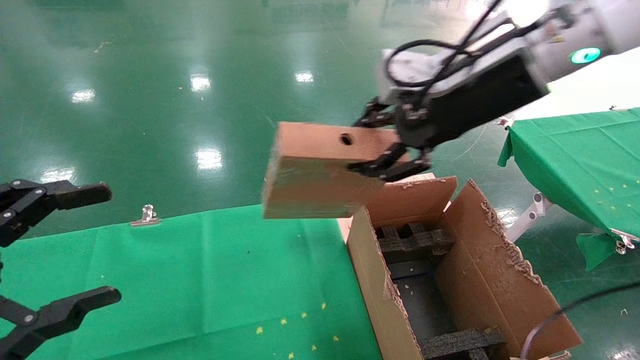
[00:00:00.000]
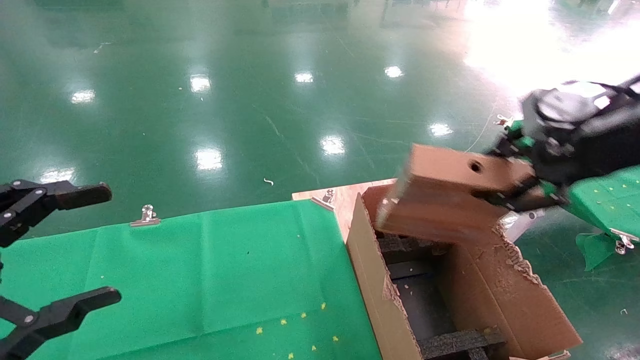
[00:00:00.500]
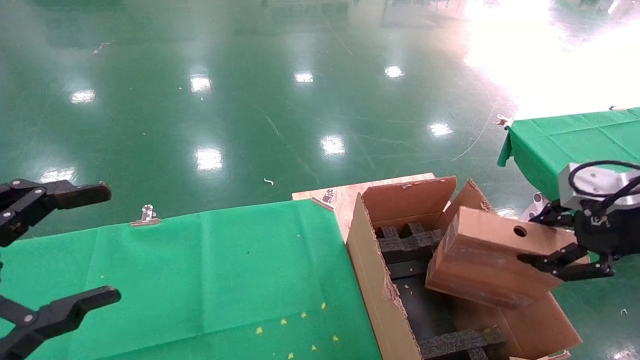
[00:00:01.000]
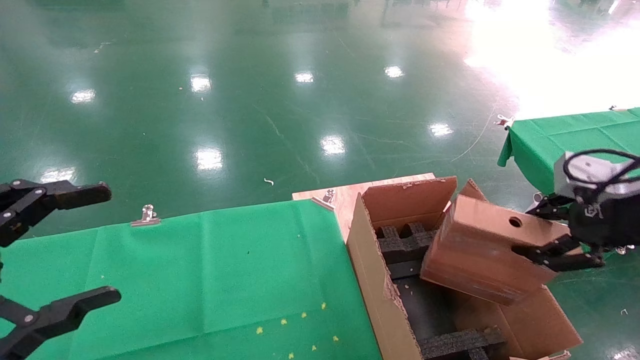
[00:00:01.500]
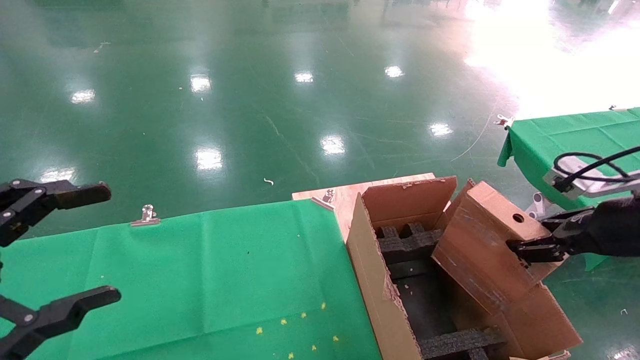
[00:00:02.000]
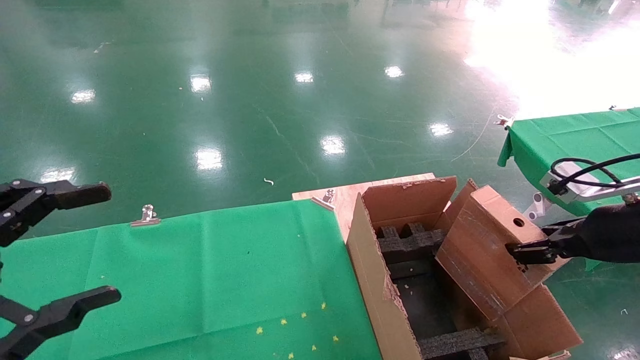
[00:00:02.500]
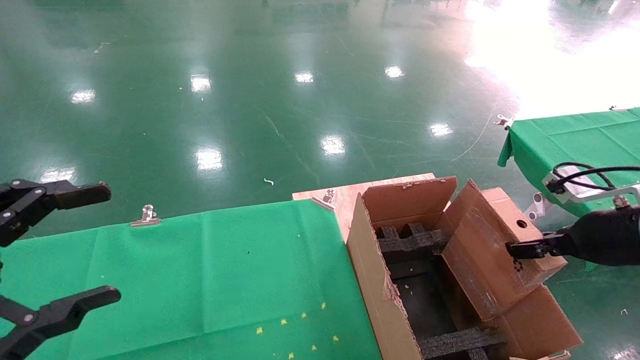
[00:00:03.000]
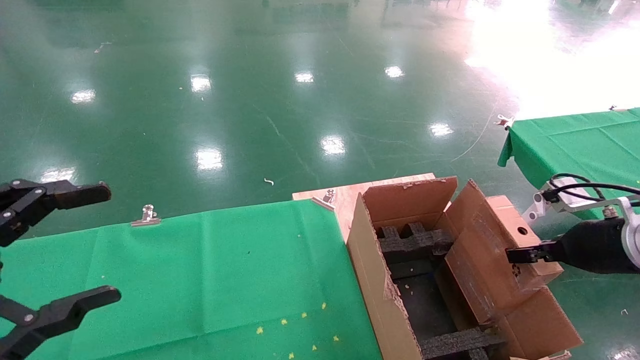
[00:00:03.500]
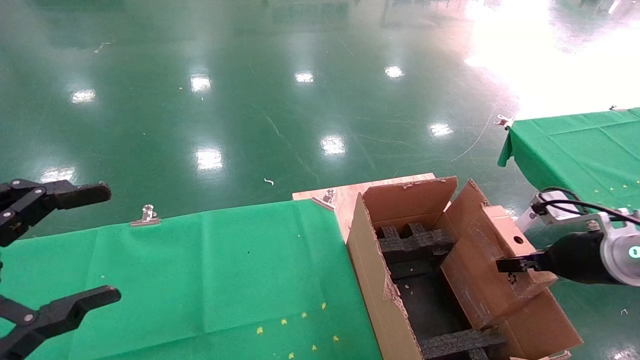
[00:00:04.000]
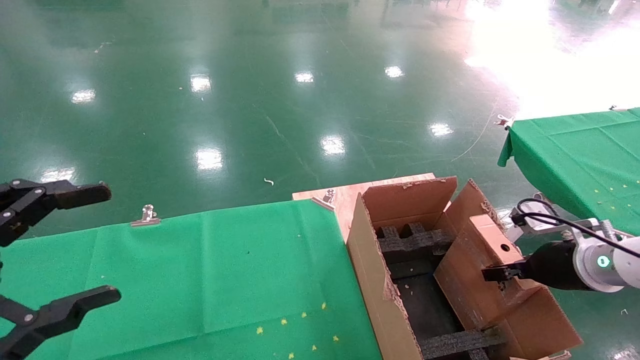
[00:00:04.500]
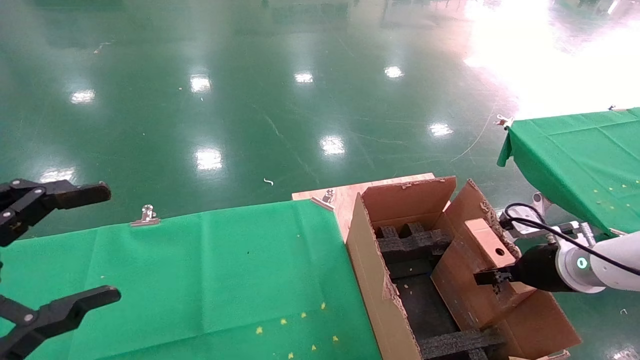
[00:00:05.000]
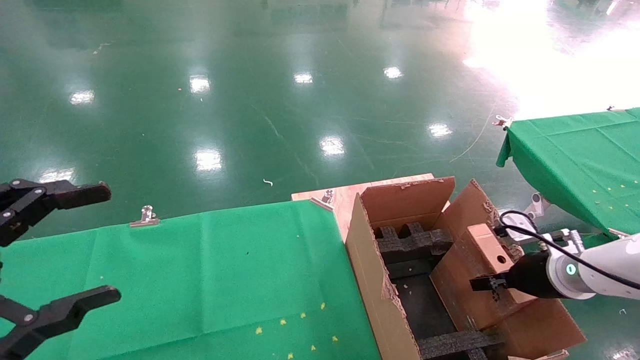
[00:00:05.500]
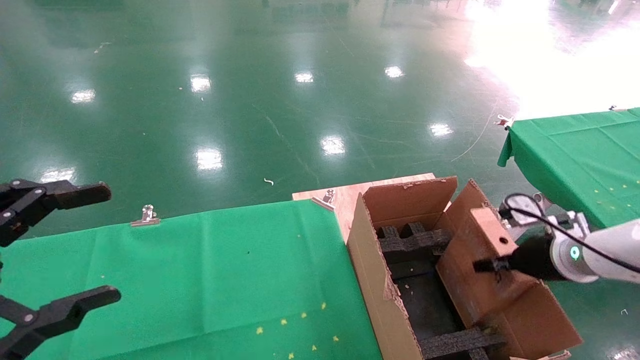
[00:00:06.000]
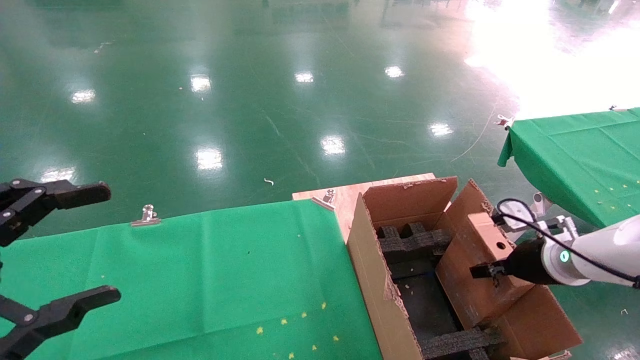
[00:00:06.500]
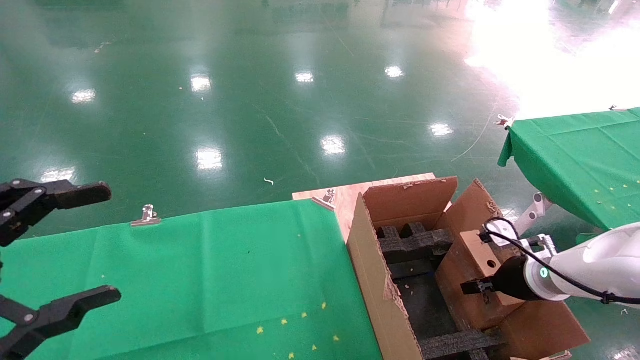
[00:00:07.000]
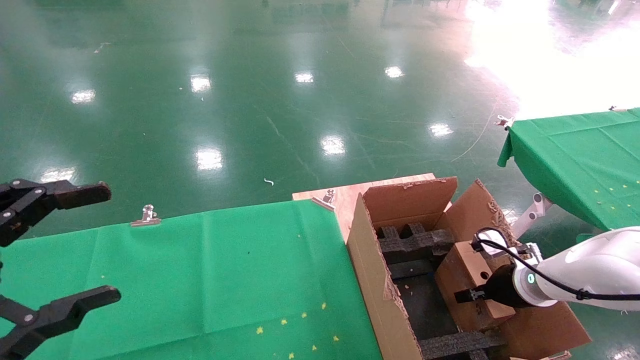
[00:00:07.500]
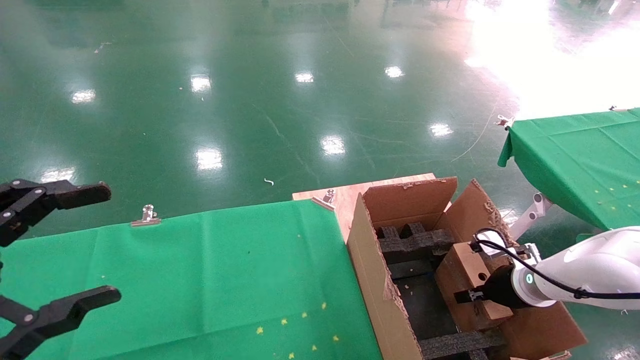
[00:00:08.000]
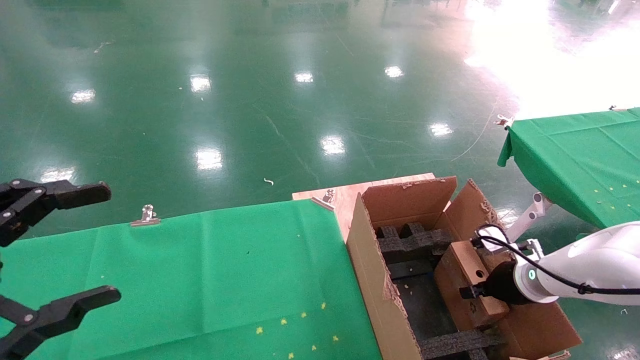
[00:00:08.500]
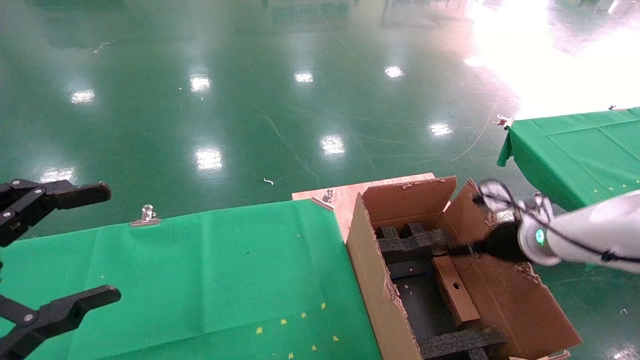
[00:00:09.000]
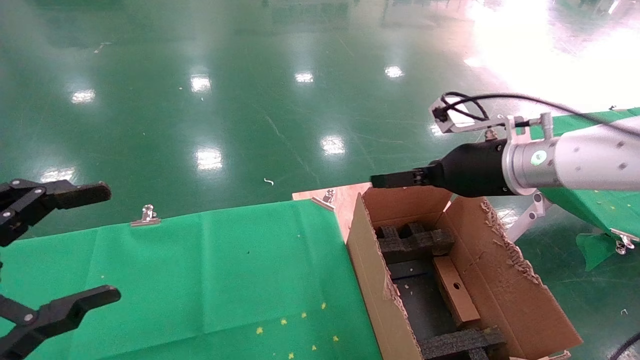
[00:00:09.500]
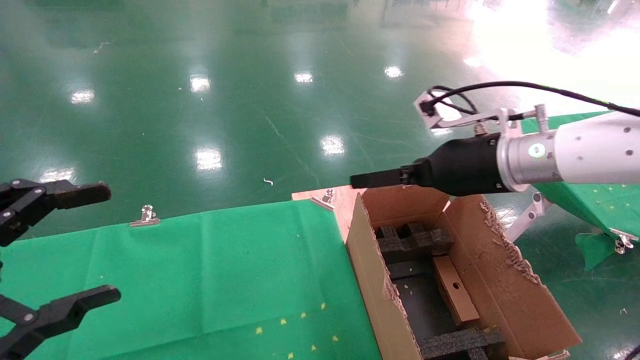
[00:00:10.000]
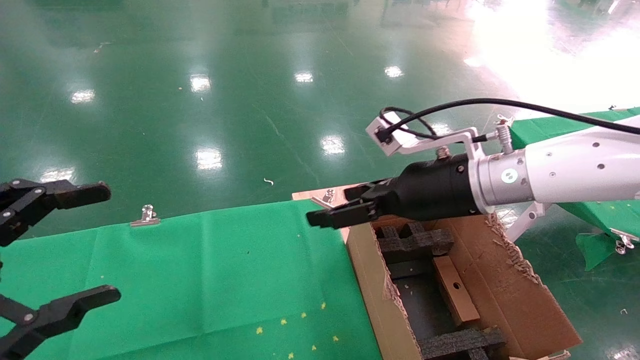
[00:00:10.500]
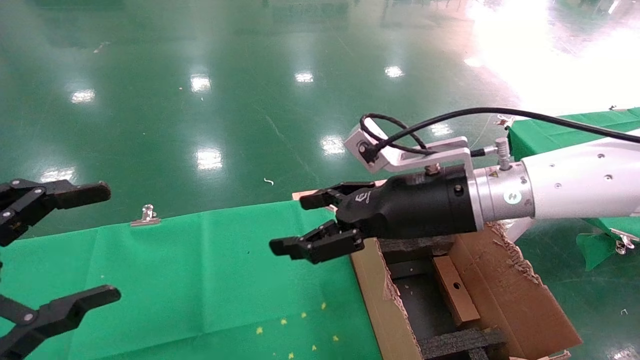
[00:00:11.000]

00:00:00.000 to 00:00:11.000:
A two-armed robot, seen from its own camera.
Task of the whole recording: using a robotic arm to pick up a cardboard box and palace it the carton.
Step, 00:00:00.000 to 00:00:09.000: Place the mouse and the power cord paper box into the container.
00:00:00.000 to 00:00:02.000: The right gripper heads to the right and downward, covering about 25 cm.
00:00:02.000 to 00:00:03.500: The right gripper travels downward by some 5 cm.
00:00:03.500 to 00:00:05.500: The right gripper shifts roughly 10 cm downward and forward.
00:00:05.500 to 00:00:07.500: The right gripper shifts by roughly 5 cm.
00:00:07.500 to 00:00:09.000: The right gripper heads upward, covering some 10 cm, and opens up.
00:00:09.000 to 00:00:11.000: The right gripper moves to the left and upward, approximately 20 cm.
